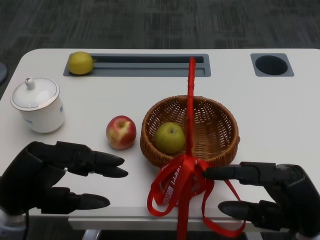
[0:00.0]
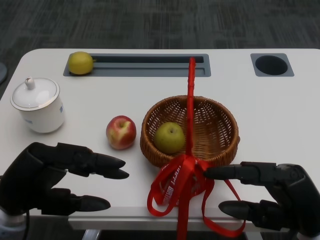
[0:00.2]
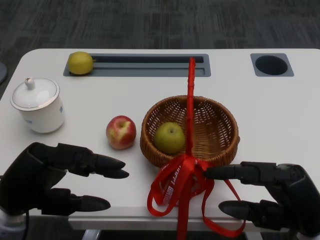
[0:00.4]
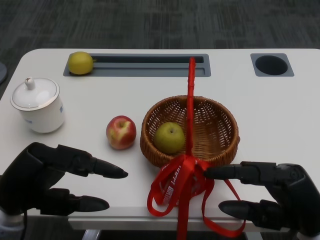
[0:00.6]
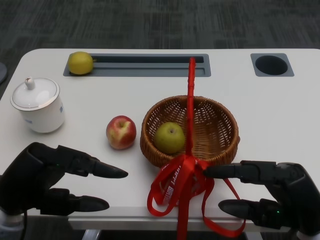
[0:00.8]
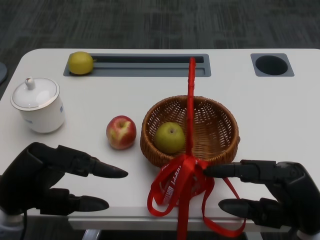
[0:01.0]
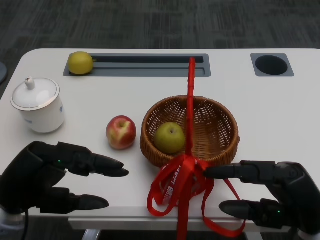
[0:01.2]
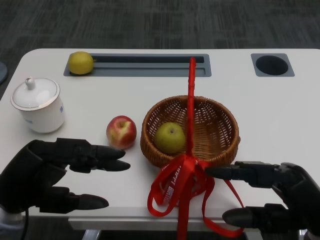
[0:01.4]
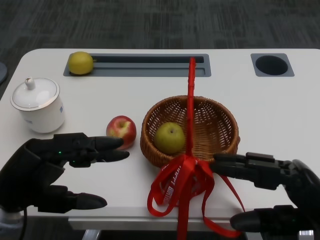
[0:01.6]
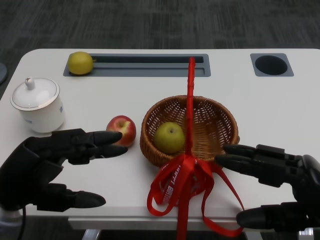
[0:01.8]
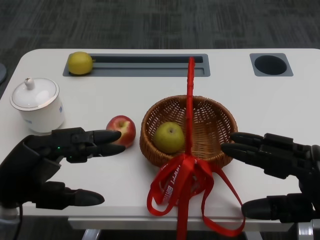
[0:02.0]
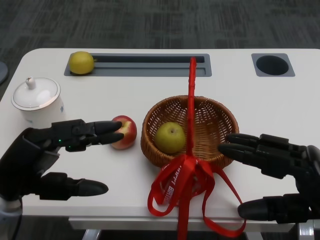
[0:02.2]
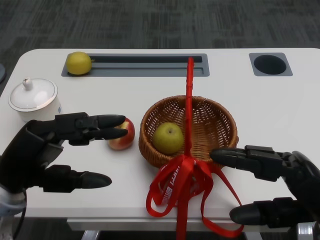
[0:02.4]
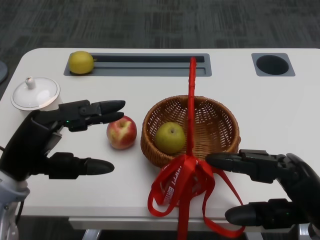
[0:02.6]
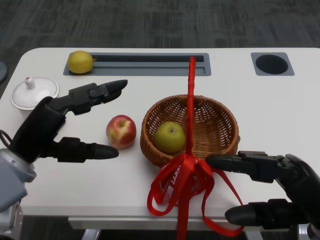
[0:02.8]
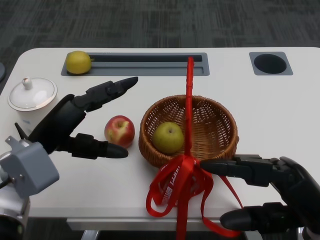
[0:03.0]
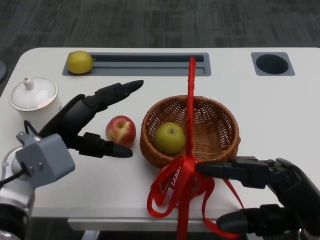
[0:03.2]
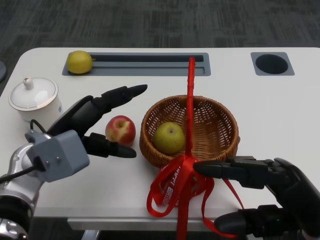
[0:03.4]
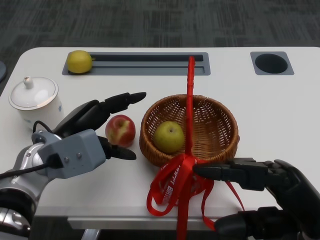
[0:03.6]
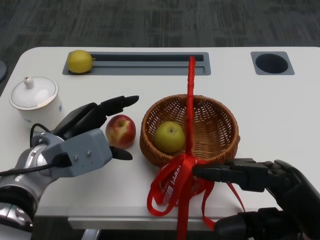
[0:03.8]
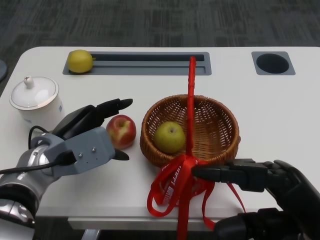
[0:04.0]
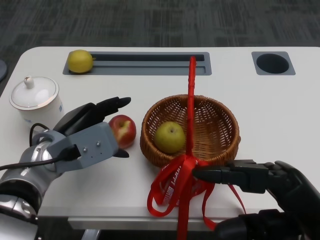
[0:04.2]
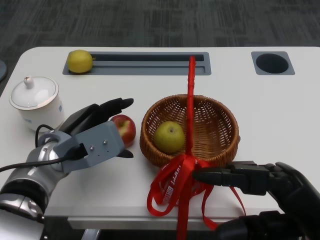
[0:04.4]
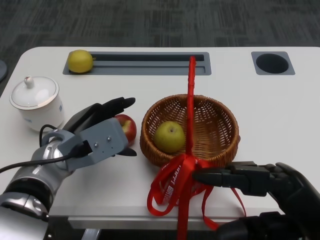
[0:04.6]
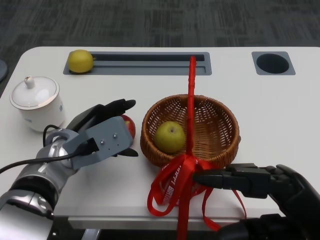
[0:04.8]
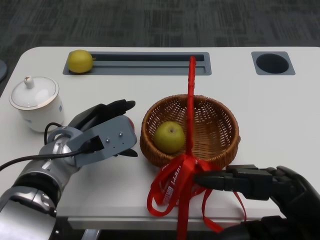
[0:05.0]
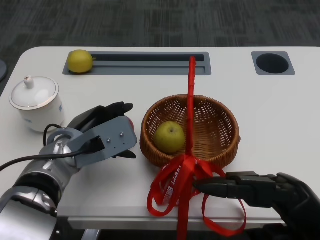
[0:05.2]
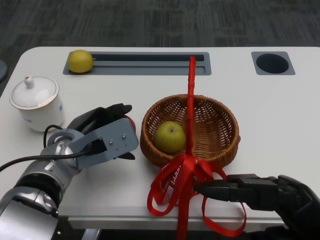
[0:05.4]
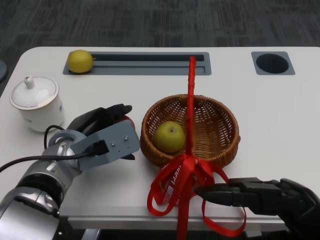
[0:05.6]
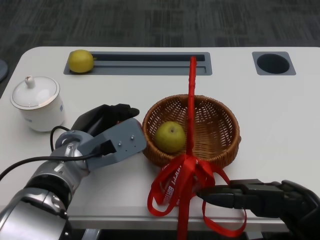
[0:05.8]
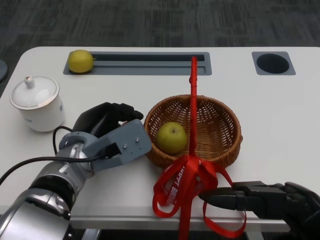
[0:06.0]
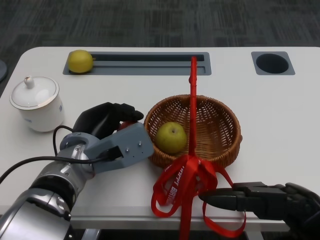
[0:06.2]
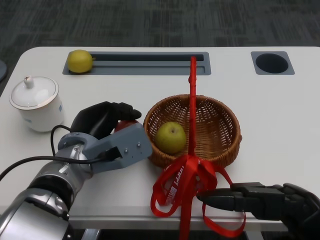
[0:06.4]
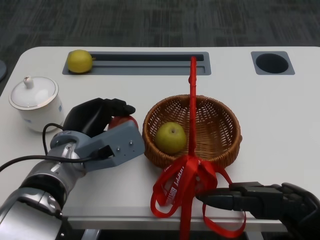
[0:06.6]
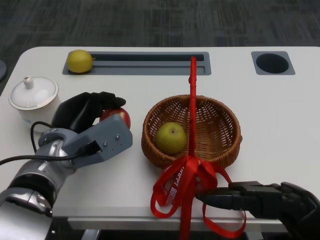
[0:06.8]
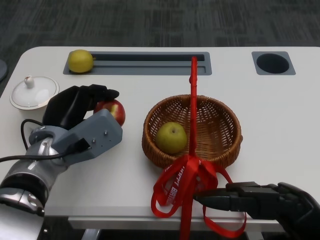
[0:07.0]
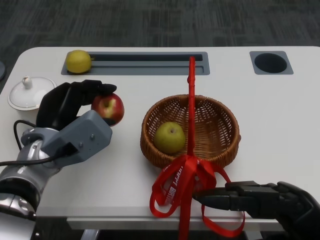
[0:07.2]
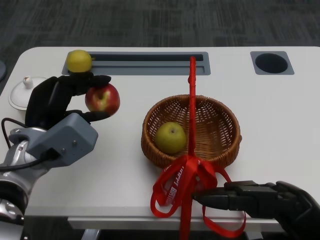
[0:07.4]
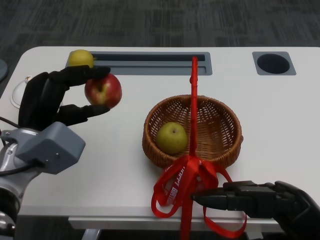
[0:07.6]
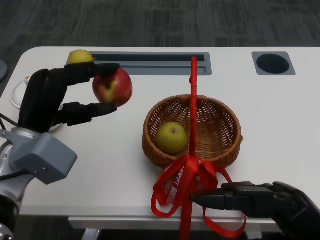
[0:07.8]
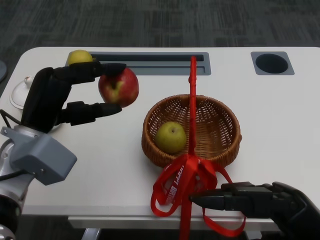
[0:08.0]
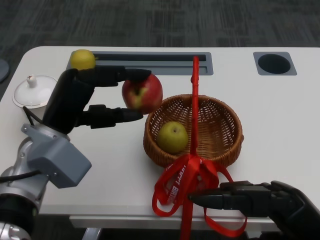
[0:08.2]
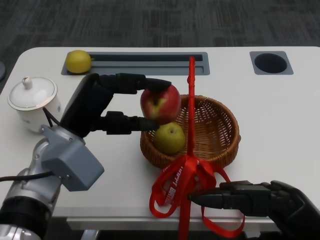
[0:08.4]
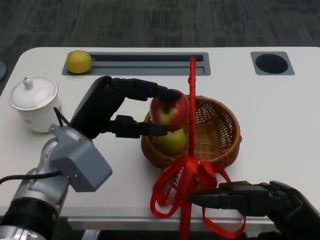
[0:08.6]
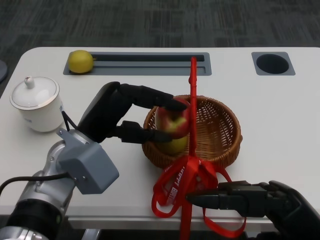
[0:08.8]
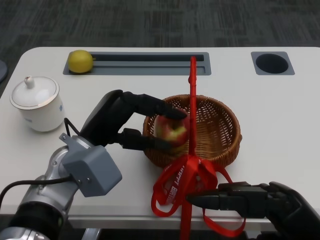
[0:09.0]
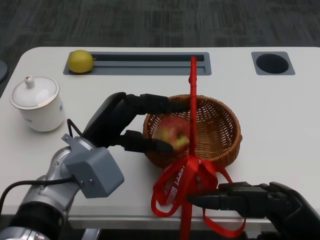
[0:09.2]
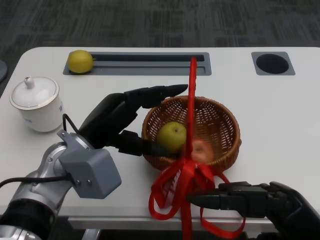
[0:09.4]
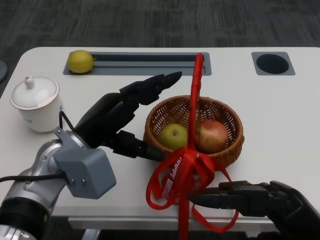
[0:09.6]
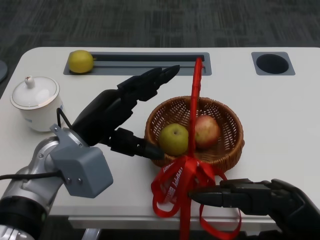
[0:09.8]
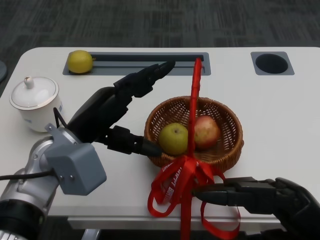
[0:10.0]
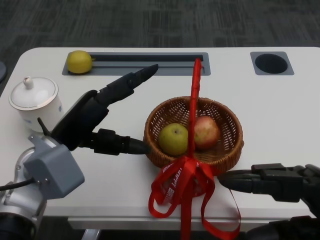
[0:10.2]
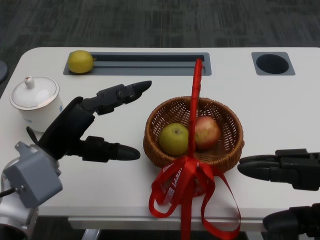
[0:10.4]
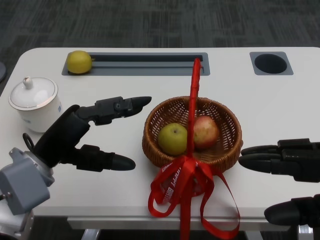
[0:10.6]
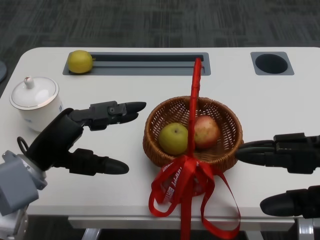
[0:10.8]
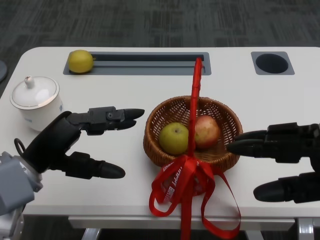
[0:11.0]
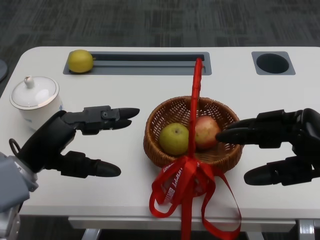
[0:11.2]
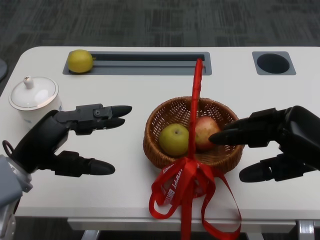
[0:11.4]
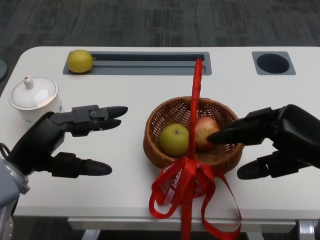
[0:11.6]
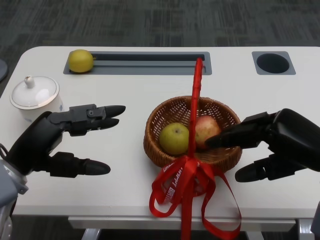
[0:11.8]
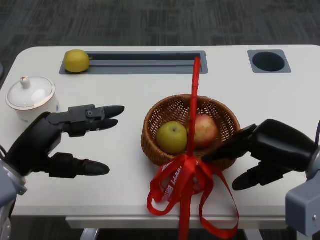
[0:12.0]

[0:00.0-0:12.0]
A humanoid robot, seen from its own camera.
Step, 0:01.0 to 0:04.8: Grasp the apple with the left gripper.
Step, 0:05.0 to 0:07.6: Place the apple into the basket with the left gripper.
Step, 0:07.8 to 0:10.6: Grasp the basket with the right gripper.
0:01.6 to 0:03.0: The left hand moves forward, roughly 10 cm.
0:03.0 to 0:04.4: The left hand shifts by roughly 5 cm.
0:06.0 to 0:07.6: The left hand goes some 5 cm to the left.
0:07.6 to 0:09.0: The left hand moves to the right, about 5 cm.
0:09.0 to 0:10.4: The left hand heads to the left, covering about 5 cm, while the right hand travels to the right by about 5 cm.
0:10.4 to 0:12.0: The right hand is displaced forward by roughly 10 cm, while the left hand ends up about 5 cm from where it was.

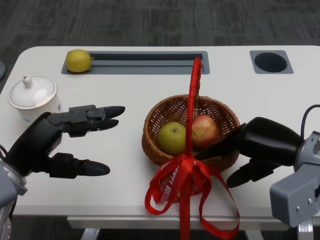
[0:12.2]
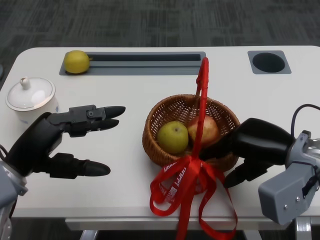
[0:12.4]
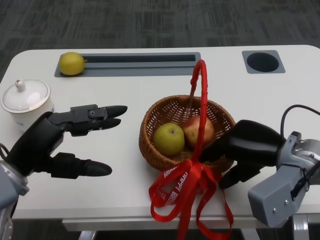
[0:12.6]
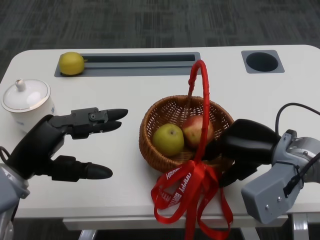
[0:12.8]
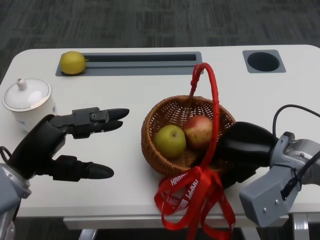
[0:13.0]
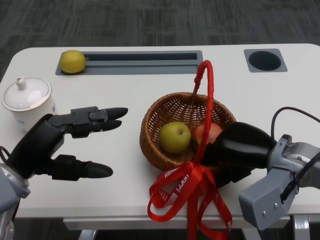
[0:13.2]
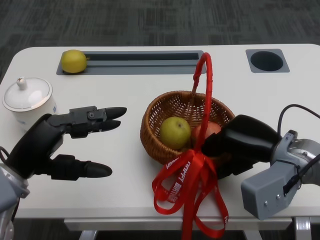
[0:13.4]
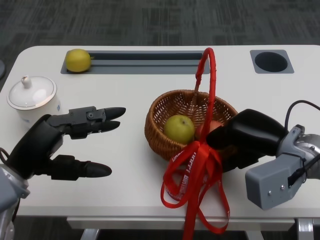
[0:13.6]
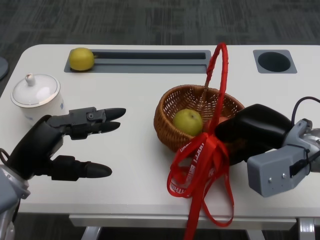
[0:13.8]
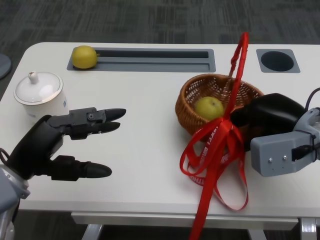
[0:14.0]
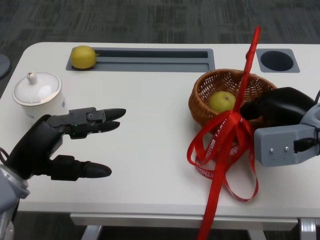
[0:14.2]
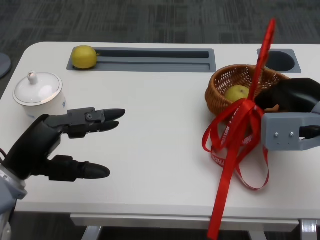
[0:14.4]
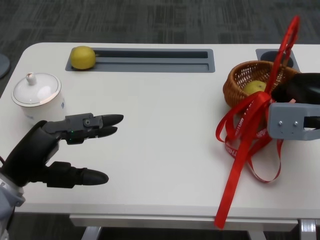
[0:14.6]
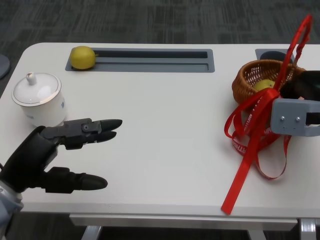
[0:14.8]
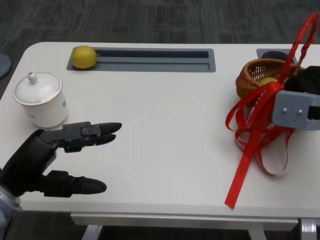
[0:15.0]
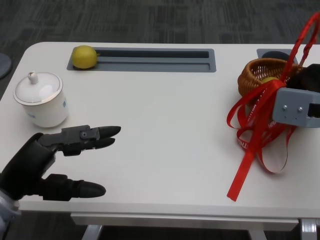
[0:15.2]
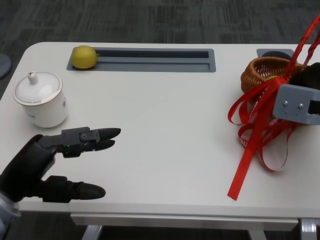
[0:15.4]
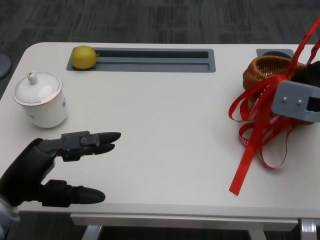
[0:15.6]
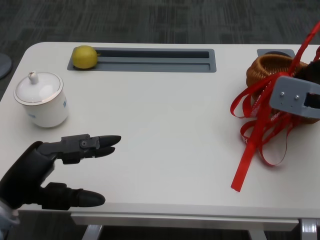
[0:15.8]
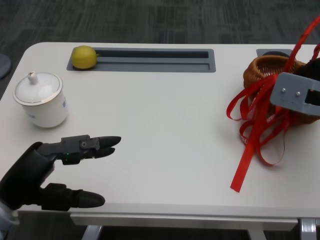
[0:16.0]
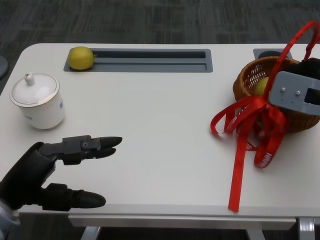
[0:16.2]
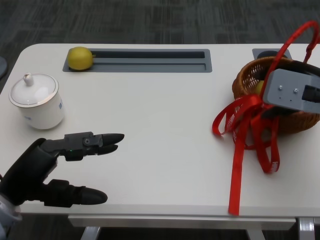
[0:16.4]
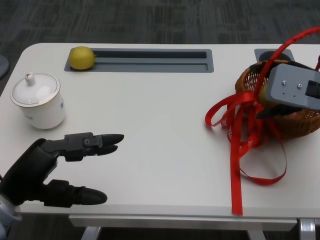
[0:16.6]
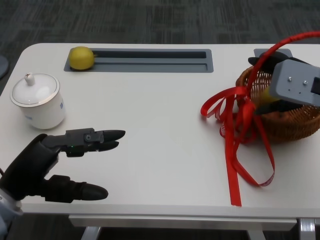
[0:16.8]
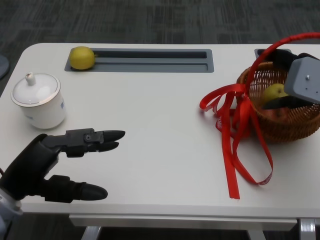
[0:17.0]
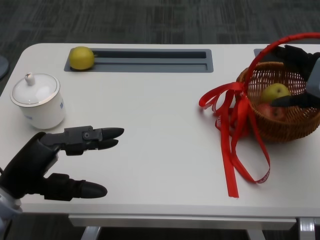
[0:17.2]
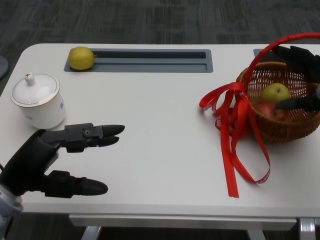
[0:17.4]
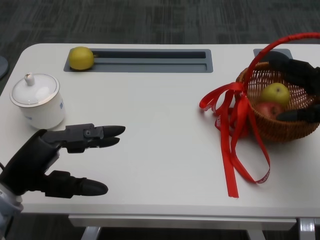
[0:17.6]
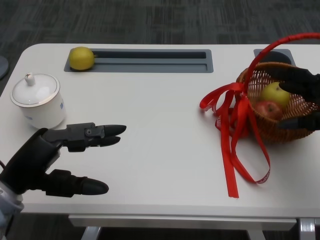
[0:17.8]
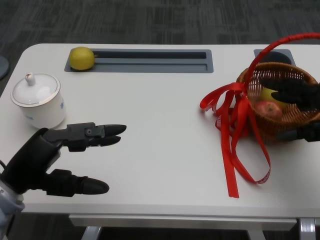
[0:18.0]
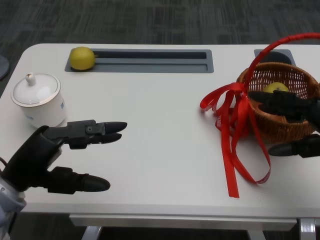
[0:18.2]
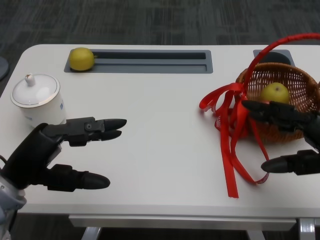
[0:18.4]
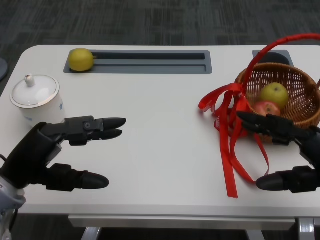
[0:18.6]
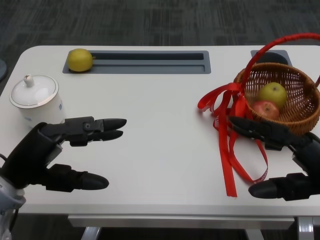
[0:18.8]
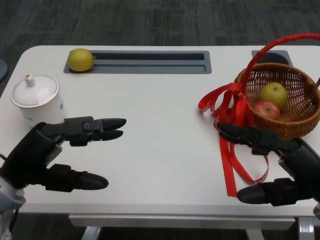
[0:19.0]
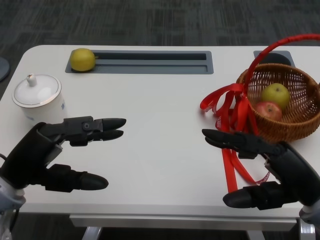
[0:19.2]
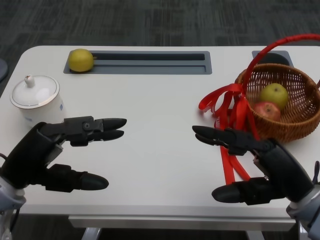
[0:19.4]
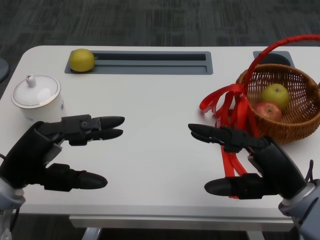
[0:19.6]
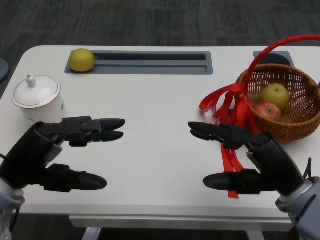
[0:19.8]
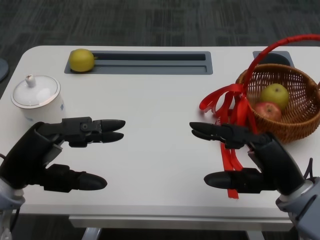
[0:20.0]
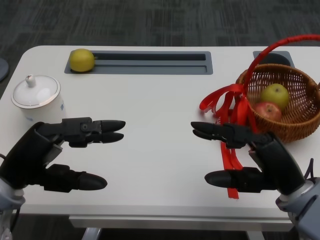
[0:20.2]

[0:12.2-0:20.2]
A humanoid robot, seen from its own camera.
0:13.8 to 0:15.4: The right hand heads to the right, covering about 5 cm.
0:17.0 to 0:18.6: The right hand travels backward and downward by roughly 15 cm.
0:18.6 to 0:20.2: The right hand heads to the left, covering about 10 cm.

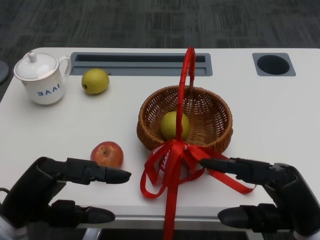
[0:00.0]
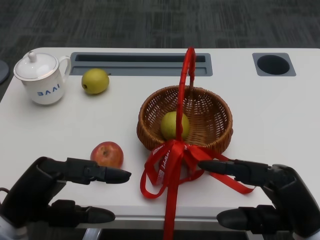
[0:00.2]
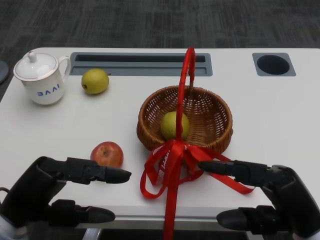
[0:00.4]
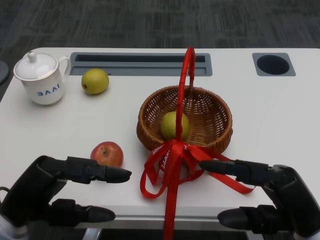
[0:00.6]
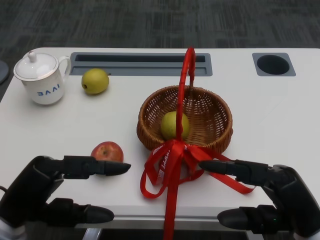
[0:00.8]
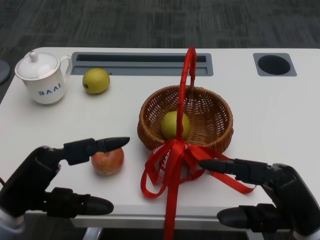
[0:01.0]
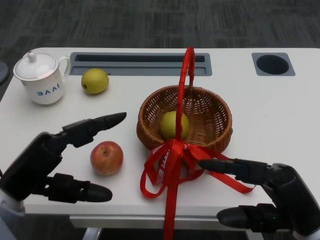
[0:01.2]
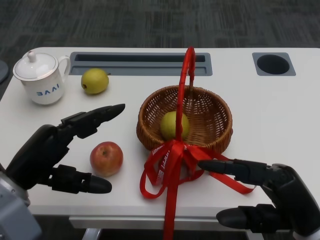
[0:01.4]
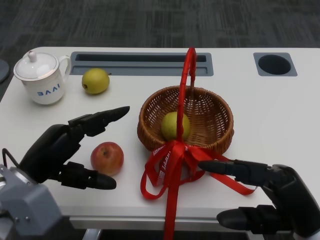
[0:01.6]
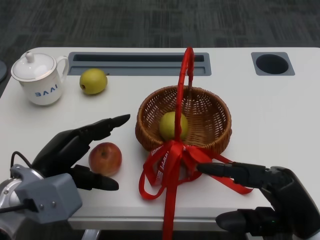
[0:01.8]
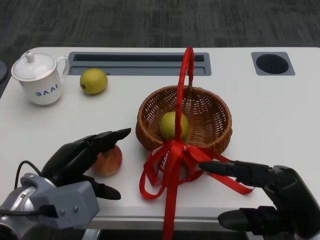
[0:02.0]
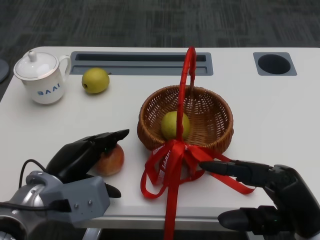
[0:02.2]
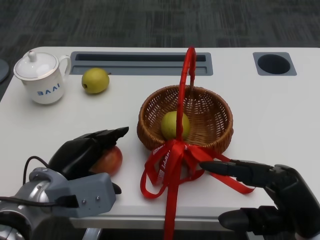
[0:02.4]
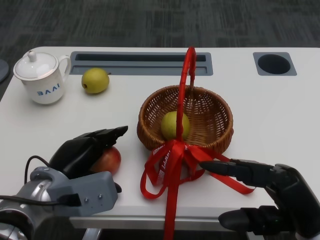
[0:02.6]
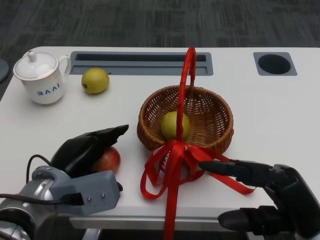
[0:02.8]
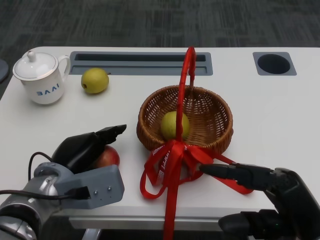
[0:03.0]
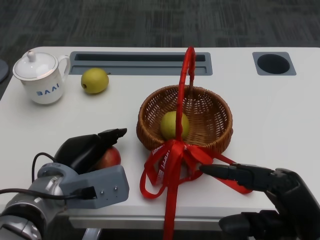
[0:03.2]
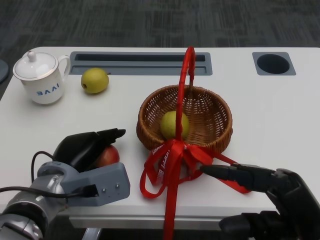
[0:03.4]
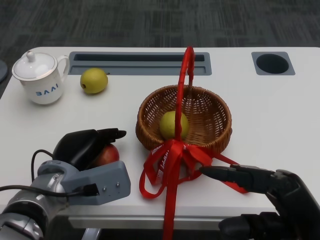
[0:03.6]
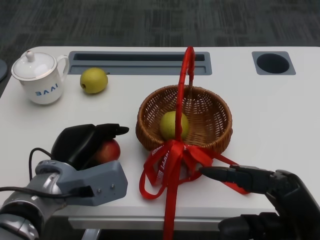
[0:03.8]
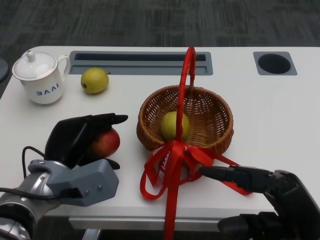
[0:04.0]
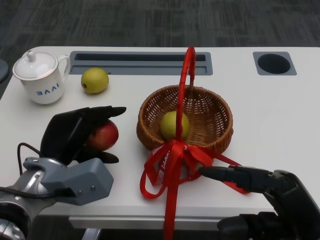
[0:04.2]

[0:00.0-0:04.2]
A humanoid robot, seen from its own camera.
Step, 0:00.6 to 0:02.8: Grasp the apple with the left gripper.
0:01.4 to 0:02.8: The left hand travels downward and to the right by some 10 cm.
